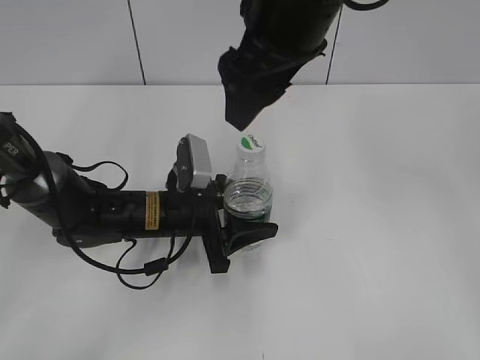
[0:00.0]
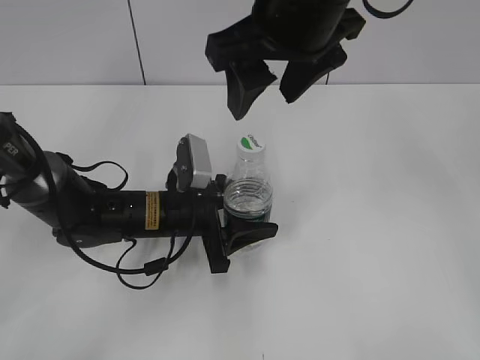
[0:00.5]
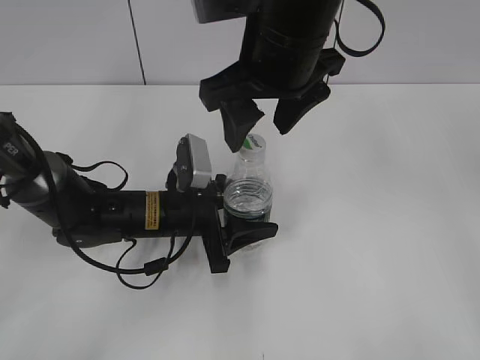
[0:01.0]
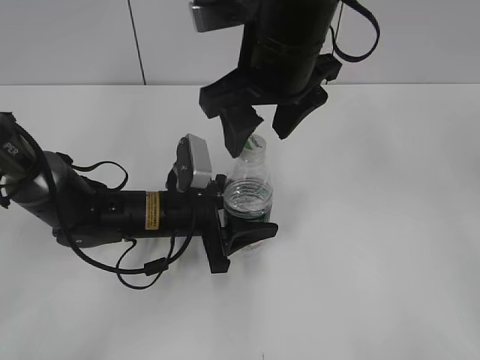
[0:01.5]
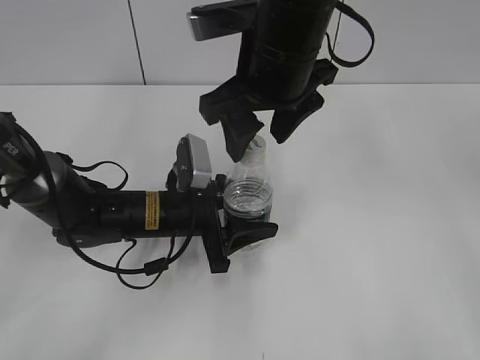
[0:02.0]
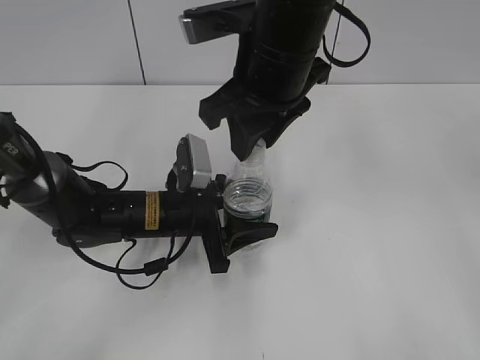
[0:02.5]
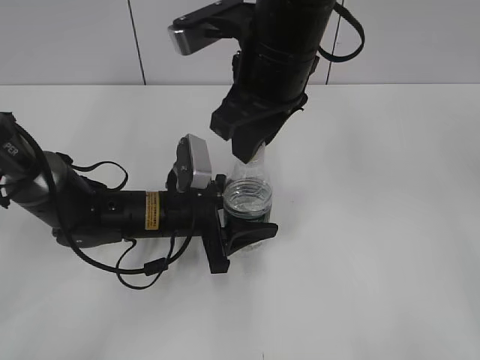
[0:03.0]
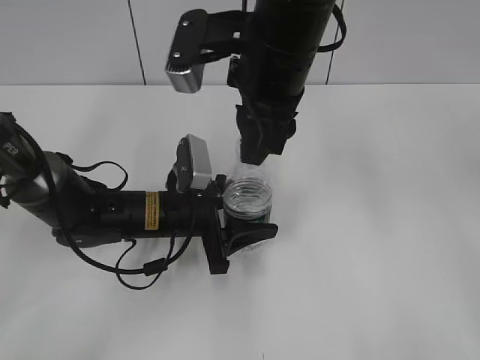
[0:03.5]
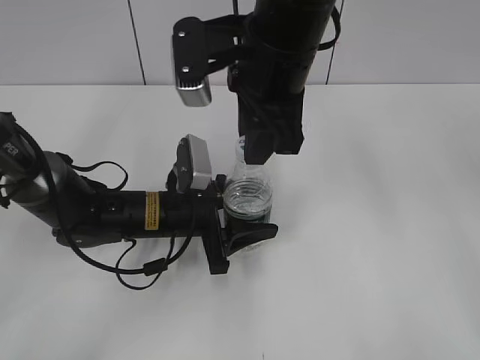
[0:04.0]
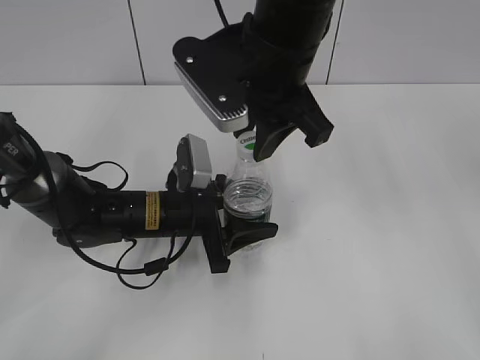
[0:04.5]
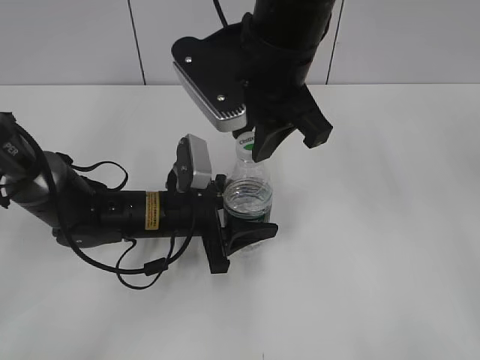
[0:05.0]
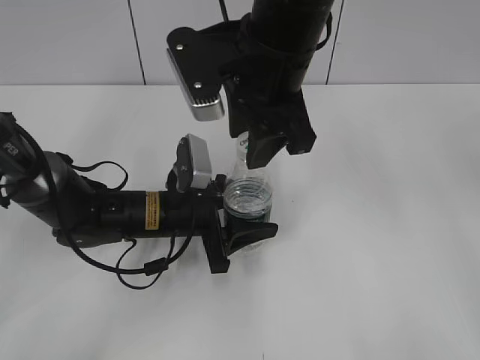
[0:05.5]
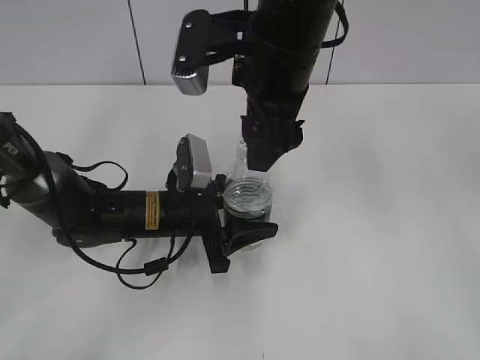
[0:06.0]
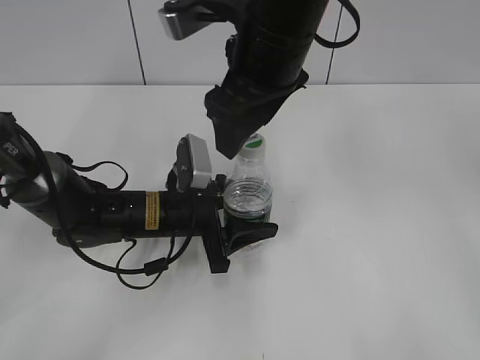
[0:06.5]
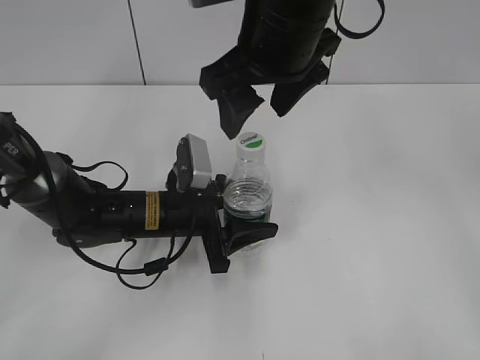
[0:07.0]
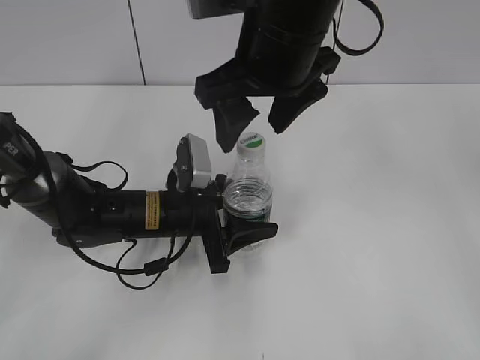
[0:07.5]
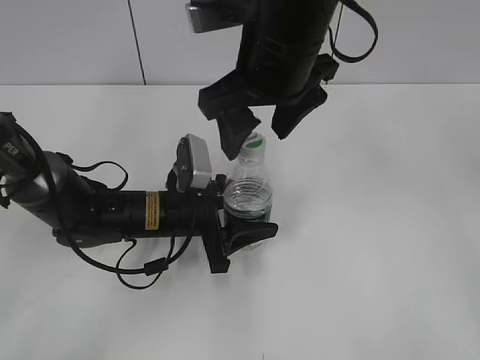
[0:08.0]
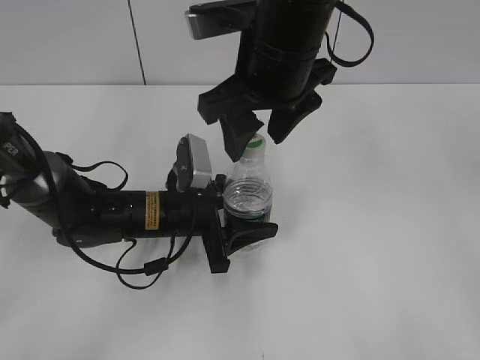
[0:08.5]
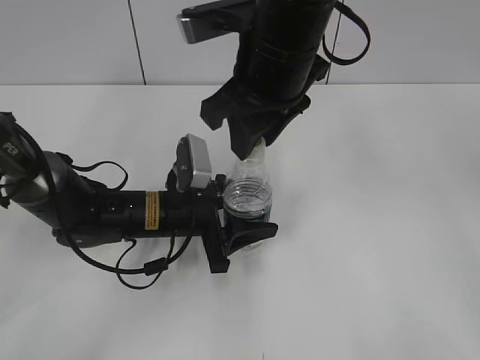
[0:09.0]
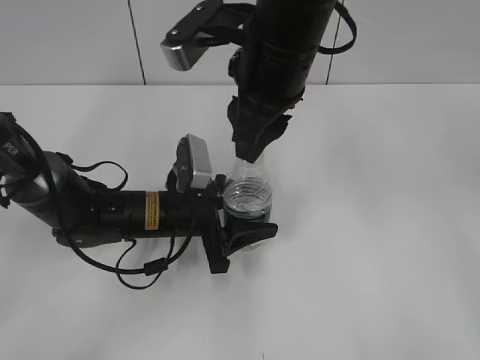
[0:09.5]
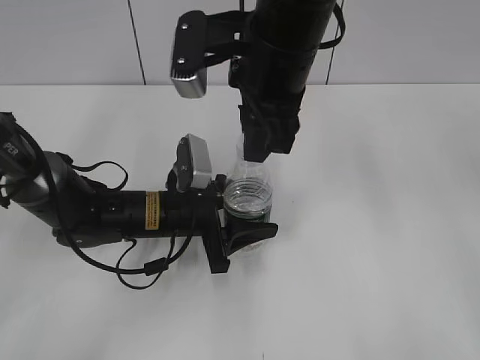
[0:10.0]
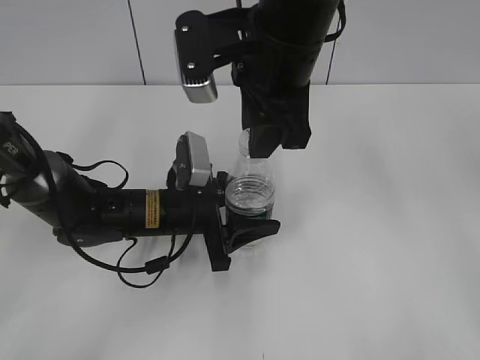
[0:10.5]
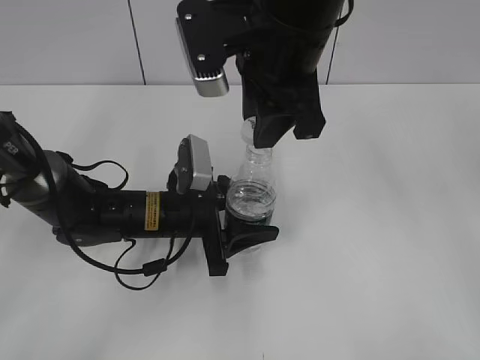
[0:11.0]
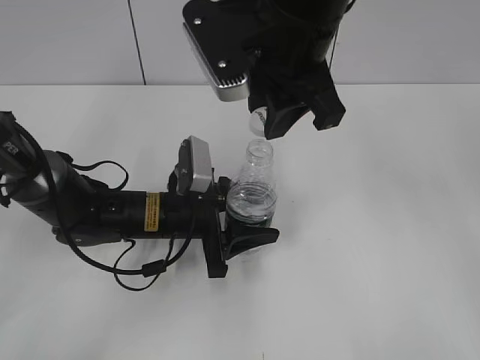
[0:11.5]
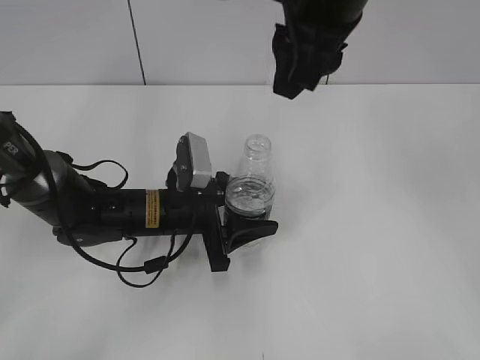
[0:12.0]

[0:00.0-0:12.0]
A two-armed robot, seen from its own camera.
Step, 0:00.0 to 0:11.5: Unscrew the bottle cap with the right gripper while holding the bottle with the left gripper.
0:00.0 to 0:02.0: The right gripper heads downward, covering roughly 5 cm.
0:02.0 to 0:04.0: The right gripper closes up.
0:04.0 to 0:06.0: The right gripper opens up.
0:08.0 to 0:10.0: The right gripper closes its fingers.
0:10.0 to 0:12.0: The right gripper shifts some 5 cm upward.

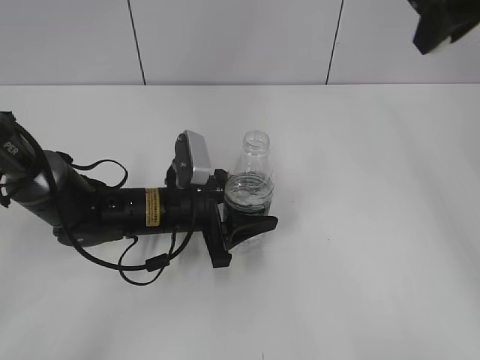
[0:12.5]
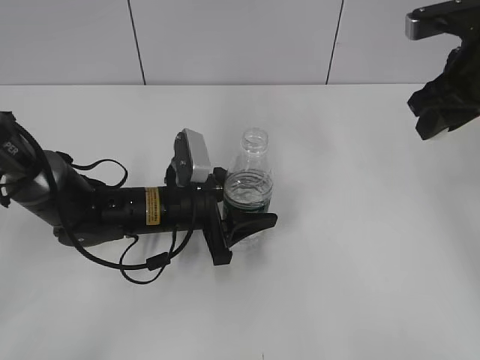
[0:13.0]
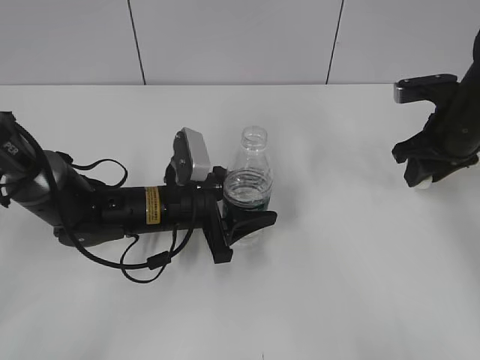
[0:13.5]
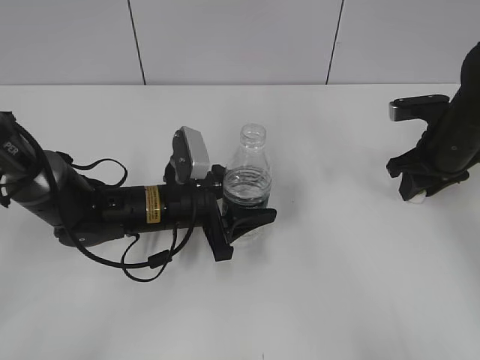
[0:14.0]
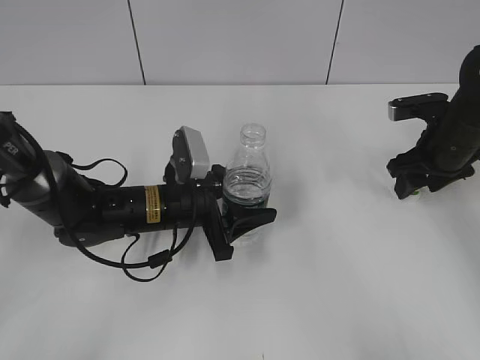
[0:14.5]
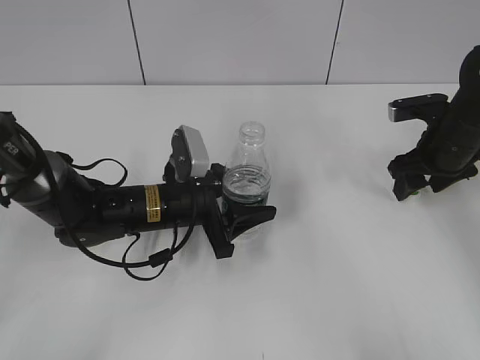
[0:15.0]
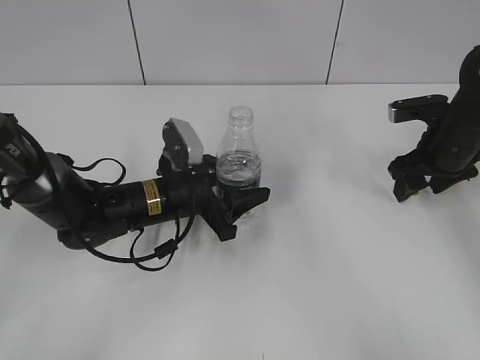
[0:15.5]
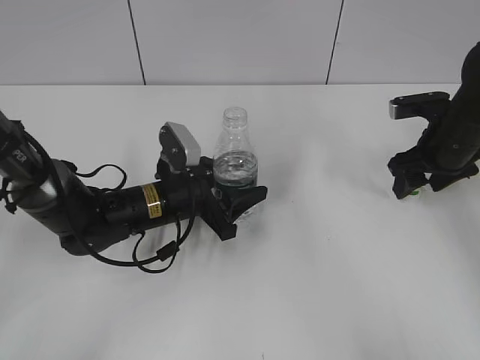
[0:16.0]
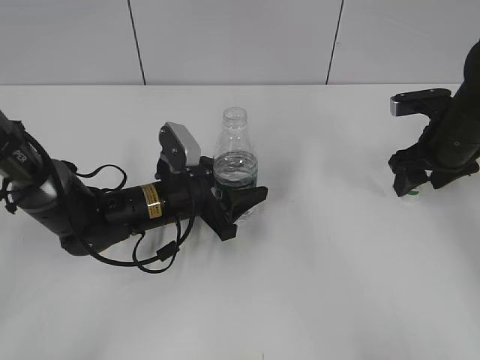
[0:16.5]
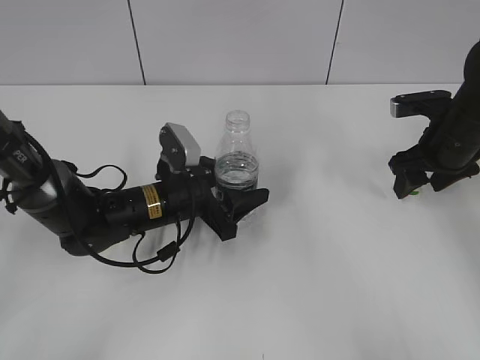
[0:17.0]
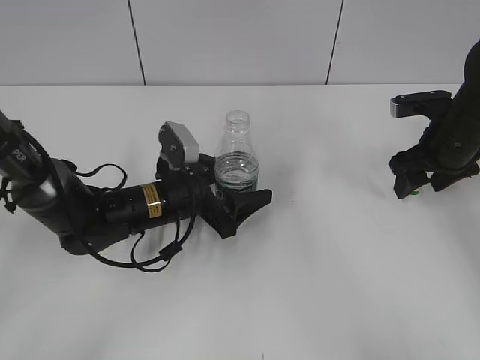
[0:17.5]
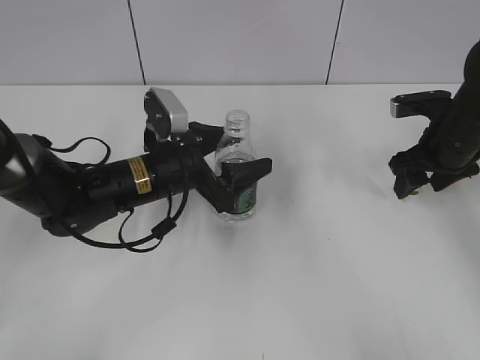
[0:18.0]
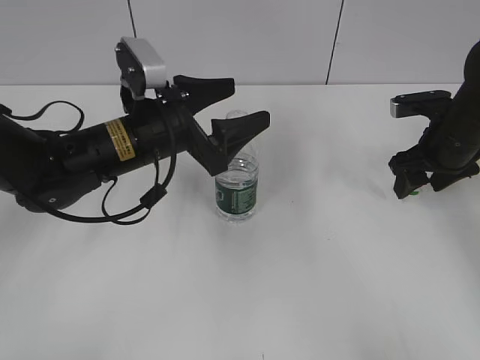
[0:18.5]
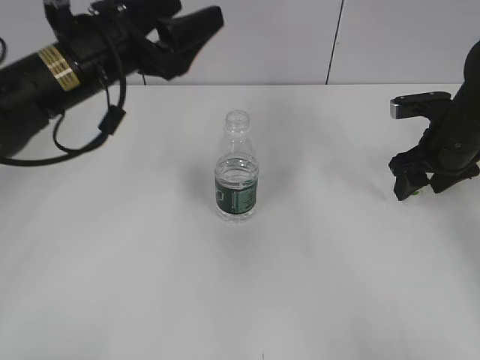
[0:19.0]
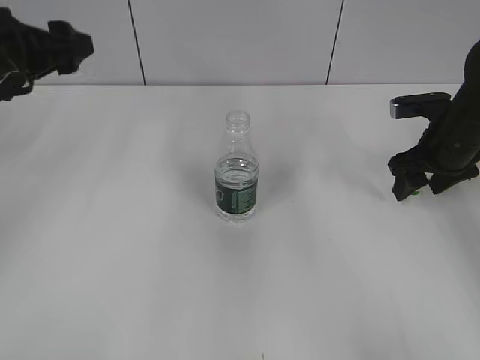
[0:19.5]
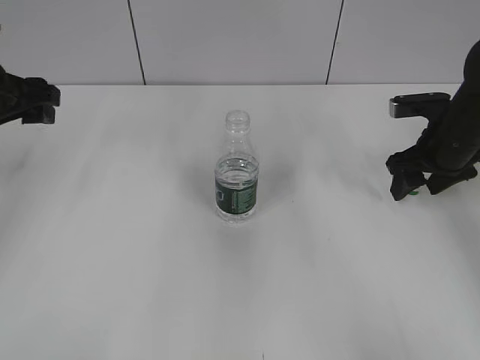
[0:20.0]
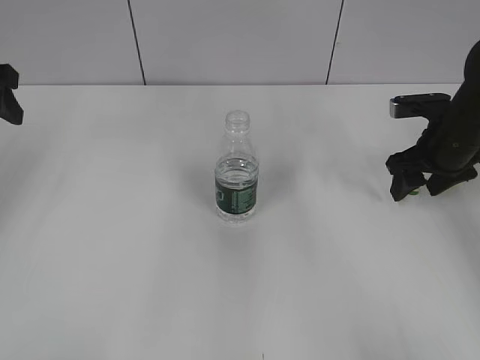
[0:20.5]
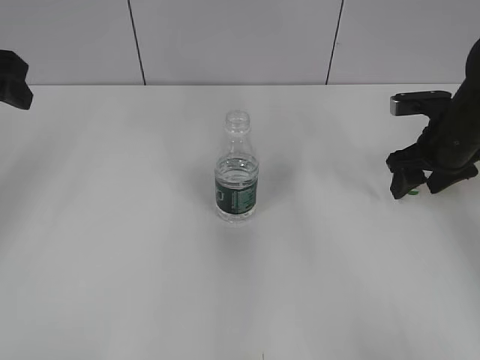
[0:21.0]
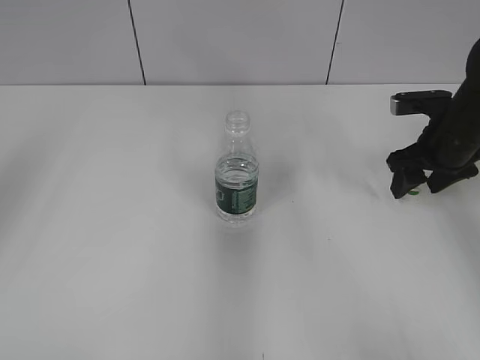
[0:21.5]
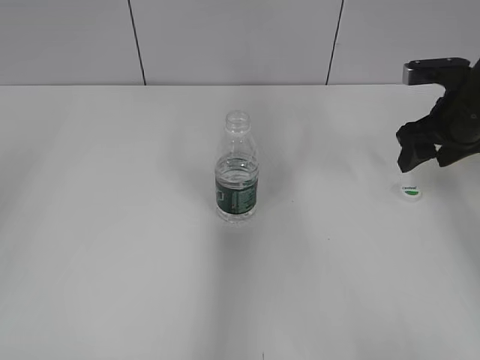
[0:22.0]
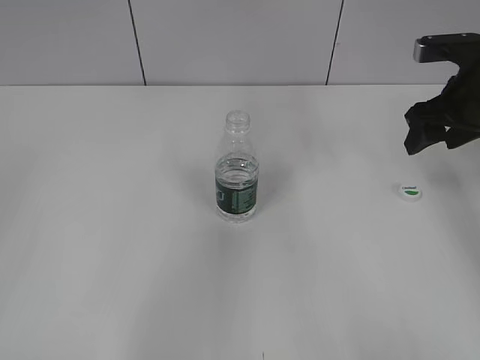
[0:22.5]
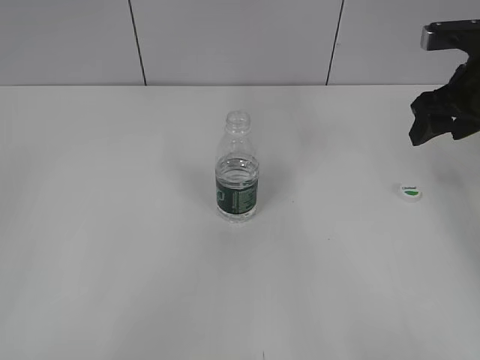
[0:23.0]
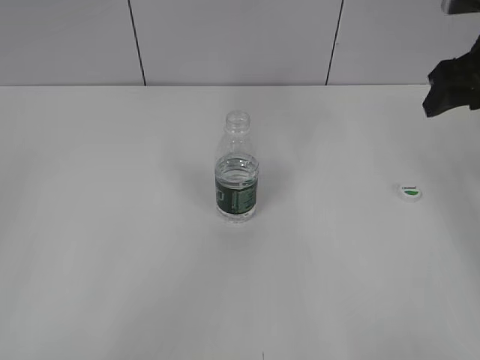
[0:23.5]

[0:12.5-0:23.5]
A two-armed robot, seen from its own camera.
Step, 0:12.5 to 0:14.5: Place the bottle cap on the table with the right gripper.
Step, 0:15.0 to 0:17.0: Place the bottle on the table with the left gripper.
0:12.5 to 0:14.5: The right gripper is displaced downward by some 25 cm, and opens its fingers.
0:14.5 to 0:16.0: There are only small adjustments of the grippers.
0:16.0 to 0:18.0: The left gripper opens up.
0:18.0 to 0:20.0: The left gripper shifts some 25 cm to the left and upward.
0:20.0 to 0:21.5: The left gripper shifts some 15 cm upward and backward.
0:21.5 to 0:23.5: The right gripper moves upward, about 15 cm. The left gripper shifts about 25 cm backward.

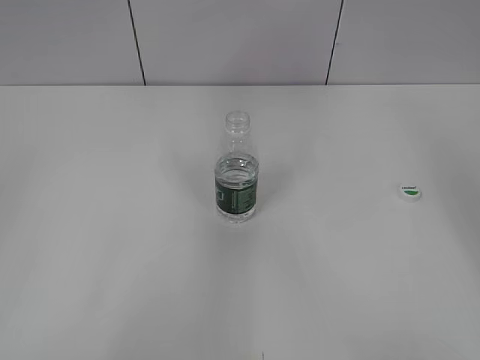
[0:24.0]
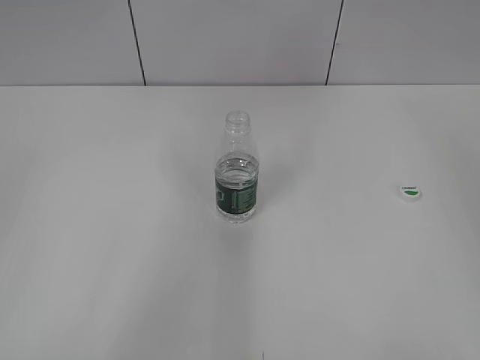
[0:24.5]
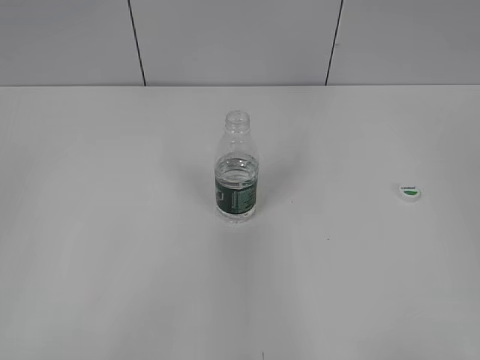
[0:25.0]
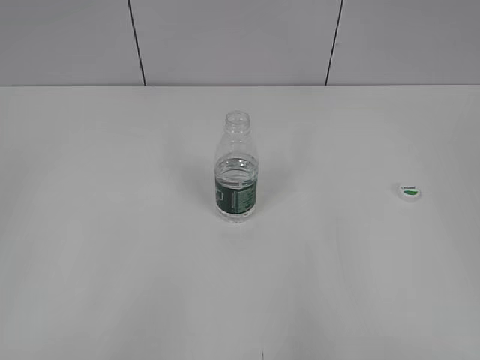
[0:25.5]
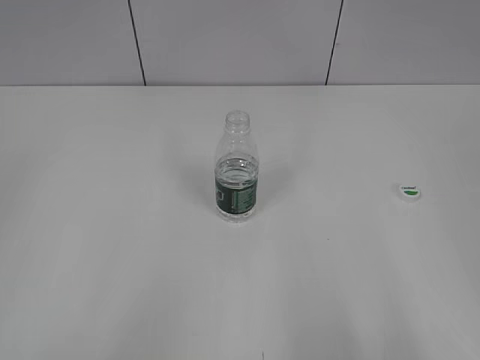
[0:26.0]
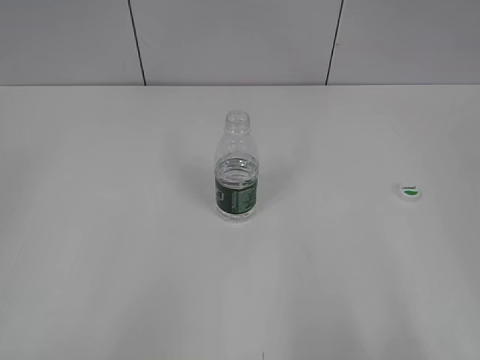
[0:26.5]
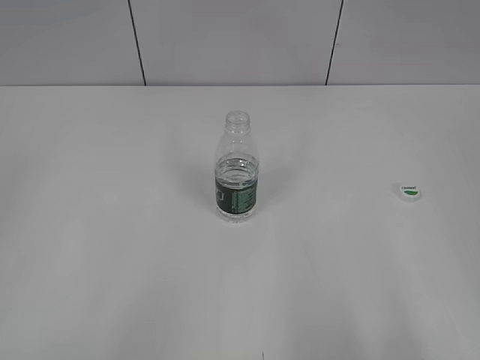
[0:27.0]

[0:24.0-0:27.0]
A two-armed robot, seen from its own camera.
0:24.0 to 0:25.5: The right gripper goes some 30 cm backward.
